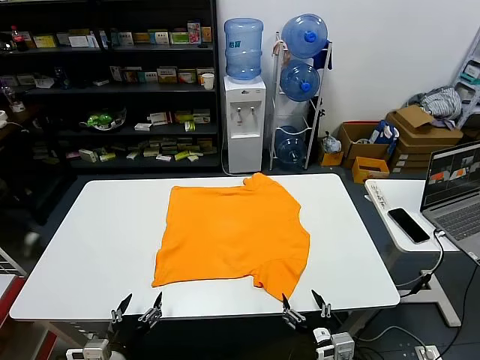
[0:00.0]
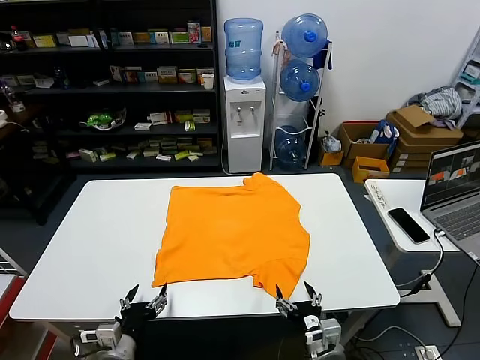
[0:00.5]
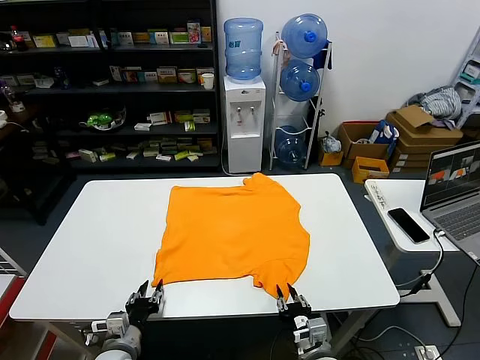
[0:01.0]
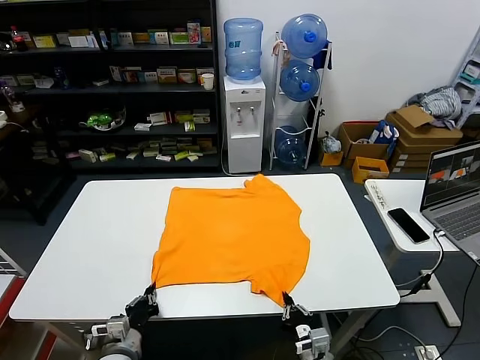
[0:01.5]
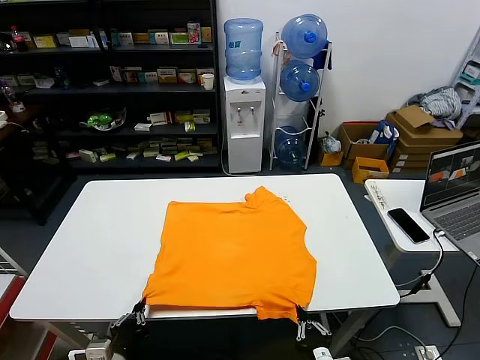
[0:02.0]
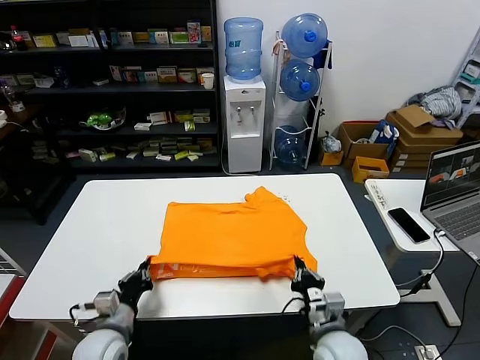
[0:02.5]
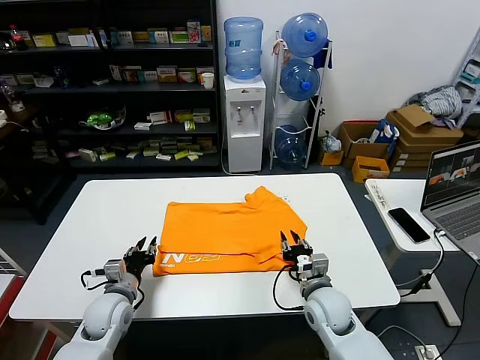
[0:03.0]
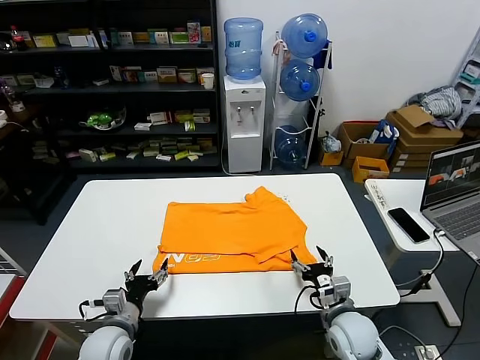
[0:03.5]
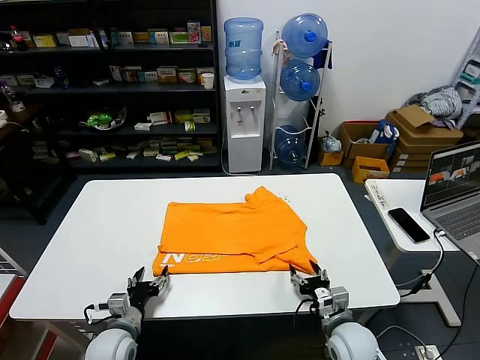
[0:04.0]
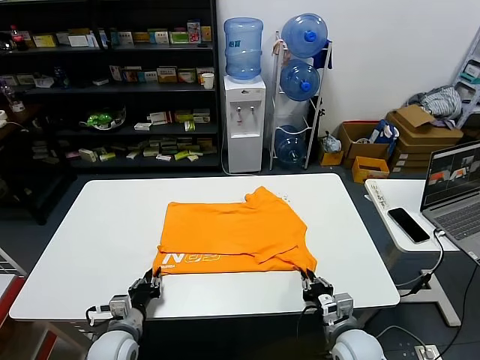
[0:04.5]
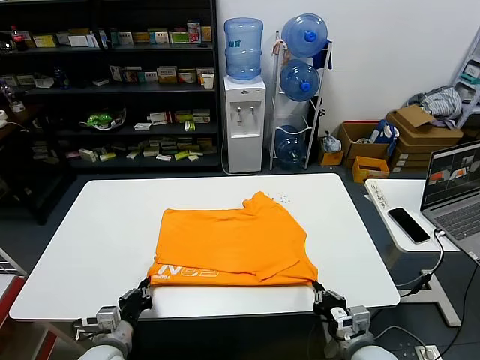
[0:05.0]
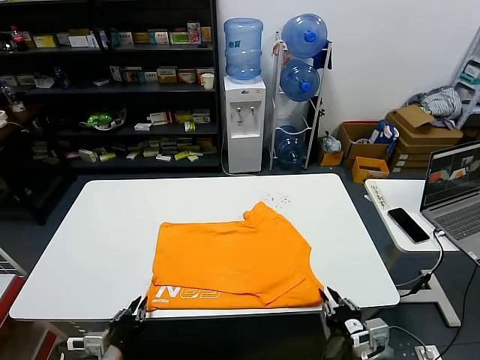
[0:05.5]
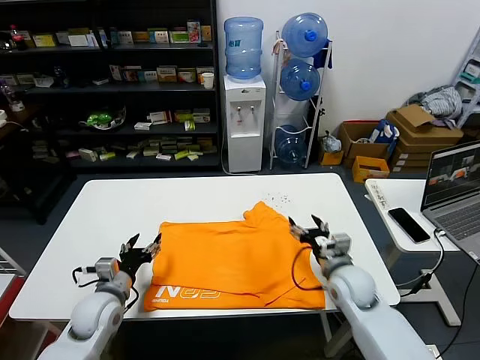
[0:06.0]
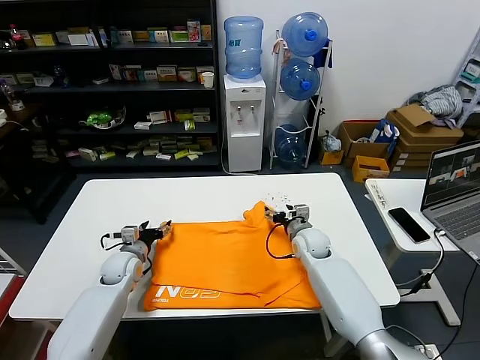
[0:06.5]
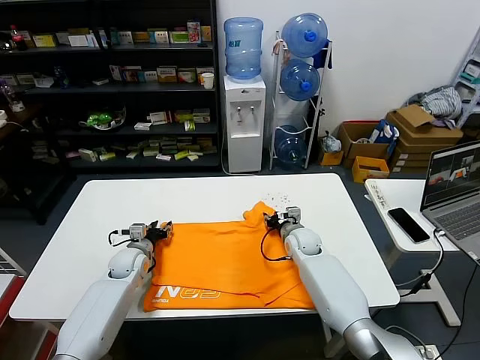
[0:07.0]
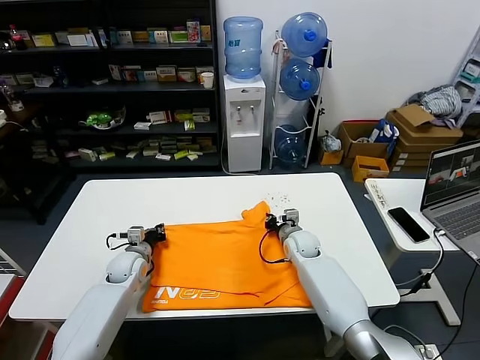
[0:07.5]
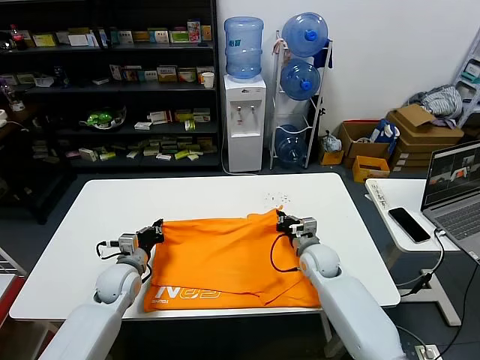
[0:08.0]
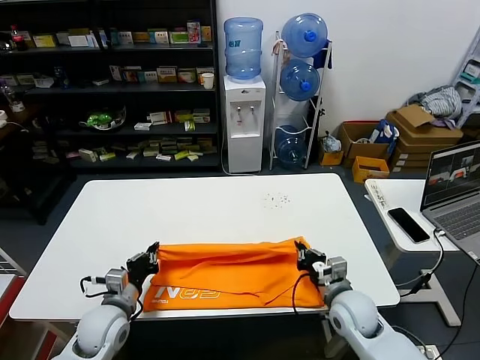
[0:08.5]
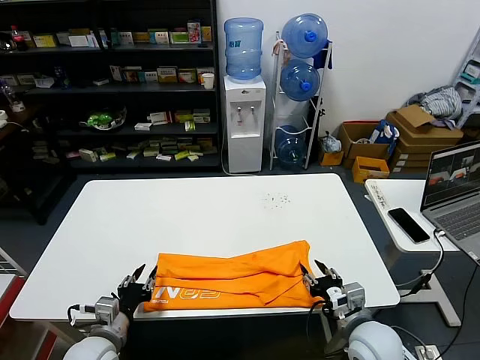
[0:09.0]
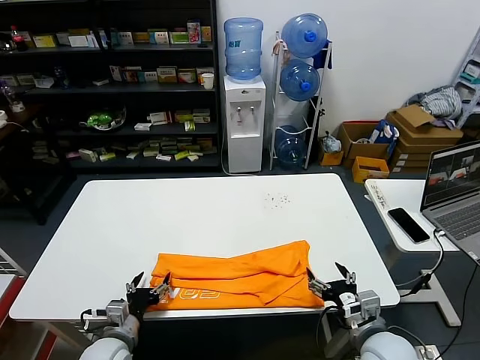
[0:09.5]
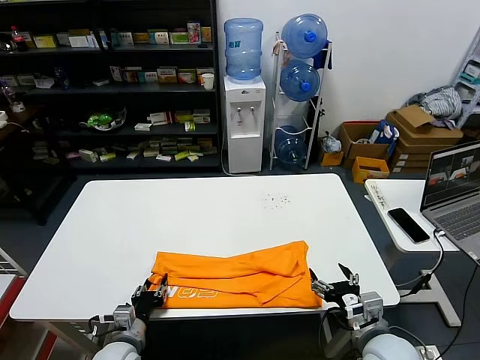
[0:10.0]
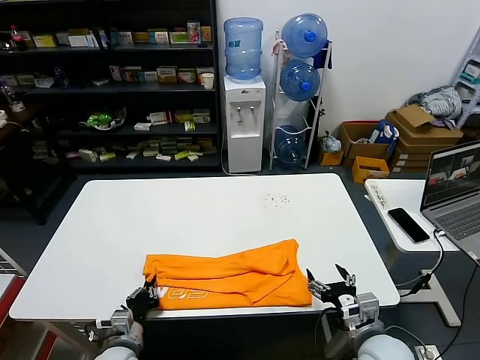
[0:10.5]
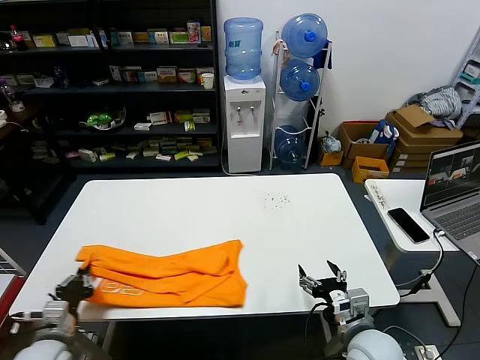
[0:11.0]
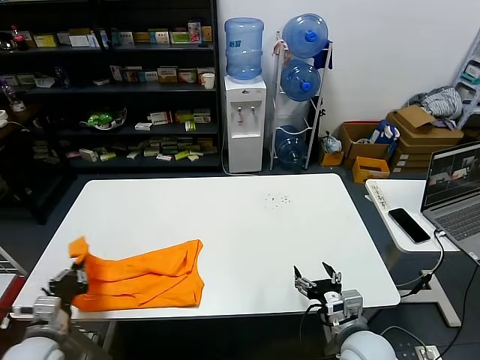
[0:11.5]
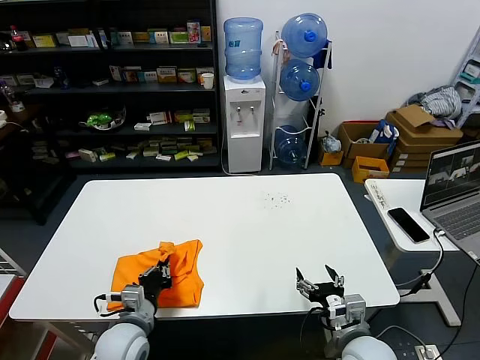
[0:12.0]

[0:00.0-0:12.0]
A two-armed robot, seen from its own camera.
Task of the whole recording: fold and organize the clothes.
Step, 0:00.0 to 0:01.5: use both grippers simultaneously to clamp the lower edge of the clothing fabric.
Step, 0:02.0 to 0:02.5: use both grippers to drag the lower edge of the fabric forward and fold it over the upper edge.
Step, 0:03.0 to 0:05.5: Drag the clothes downward with both gripper.
Step, 0:06.0 to 0:07.5: use both grippers simultaneously to clamp the upper edge of the clothing fabric.
Step, 0:08.0 to 0:08.5: use both grippers to drag the upper edge of the fabric backward and fold it over the lower edge.
Step, 0:09.0 to 0:10.5: use the left gripper to clamp the left edge of the fabric.
0:02.0 to 0:04.0: Both grippers travel together forward, roughly 15 cm. The right gripper opens up, while the left gripper opens up.
0:04.0 to 0:06.0: The right gripper is displaced forward and upward by approximately 15 cm, and closes, then reopens, while the left gripper is displaced upward by about 10 cm, travels backward and back again, approximately 10 cm each way, and closes, then opens again.
0:06.0 to 0:08.0: The right gripper shifts some 10 cm forward and downward, and closes up. Meanwhile the left gripper moves forward, some 10 cm, and closes.
0:08.0 to 0:10.0: Both grippers travel together backward, approximately 20 cm. The left gripper opens up; the right gripper opens up.
0:10.0 to 0:12.0: The left gripper shifts roughly 5 cm upward, travels to the left and back again, approximately 15 cm each way, and closes.

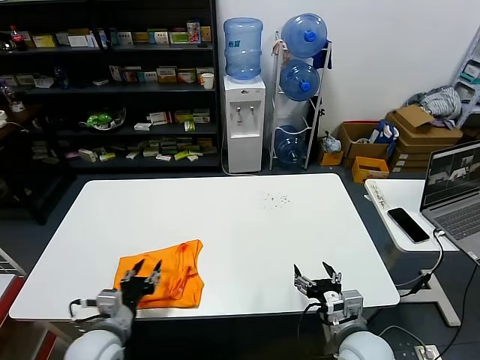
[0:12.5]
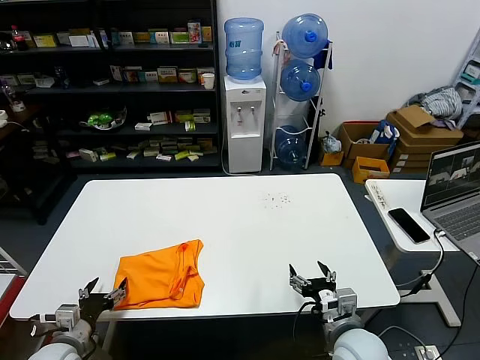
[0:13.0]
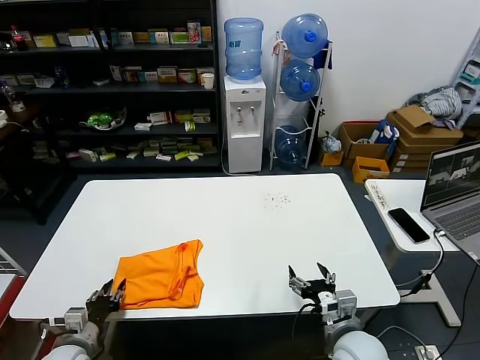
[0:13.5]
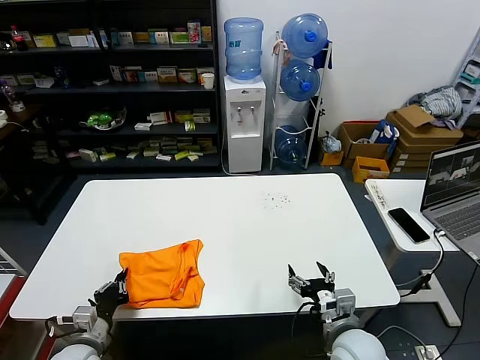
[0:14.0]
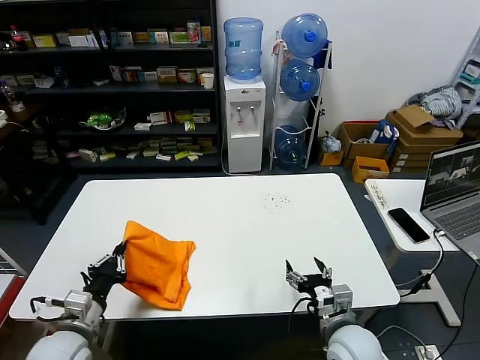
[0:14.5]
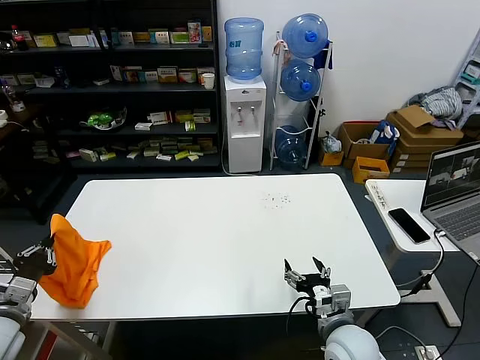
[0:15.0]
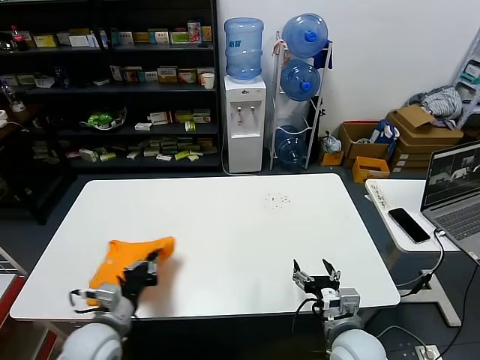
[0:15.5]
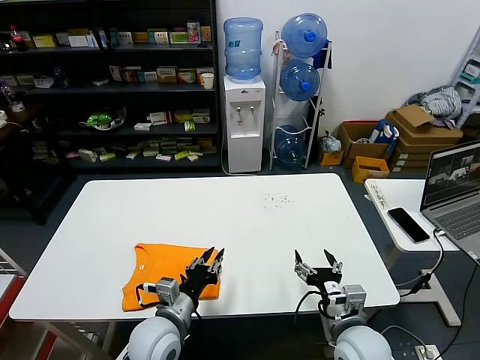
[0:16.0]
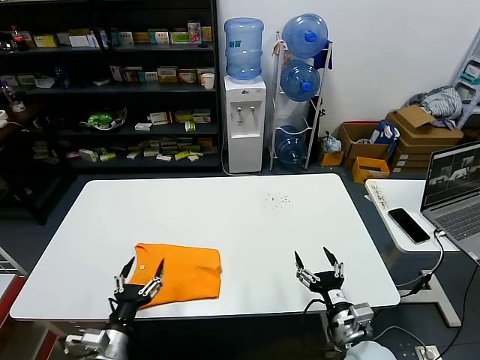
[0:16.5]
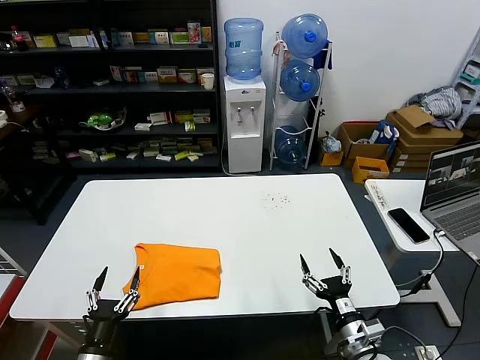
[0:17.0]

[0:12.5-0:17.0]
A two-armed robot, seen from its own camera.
Task of the whole recording: fold and organize the clothes.
Step, 0:12.5 to 0:15.5: Flip the folded clothes over with left gripper.
0:12.5 to 0:14.5: The left gripper heads to the left, covering roughly 5 cm, and closes its fingers.
0:14.5 to 0:17.0: The right gripper shifts by roughly 10 cm; the left gripper moves left and right over about 30 cm, changing direction 2 times, and opens up.
